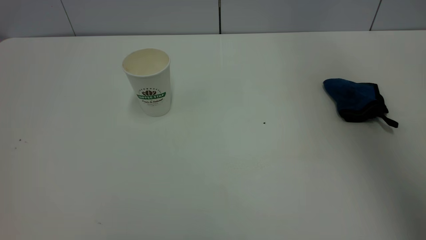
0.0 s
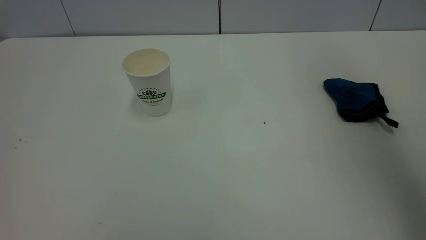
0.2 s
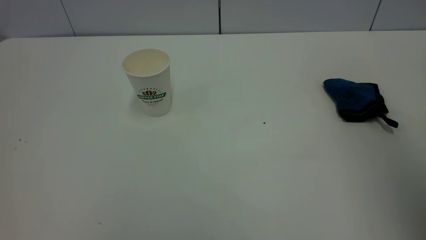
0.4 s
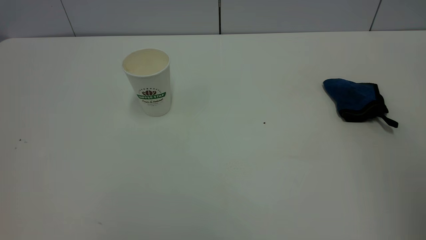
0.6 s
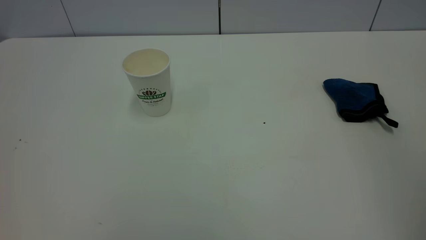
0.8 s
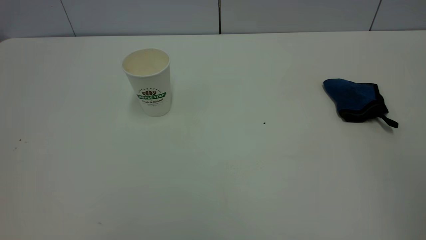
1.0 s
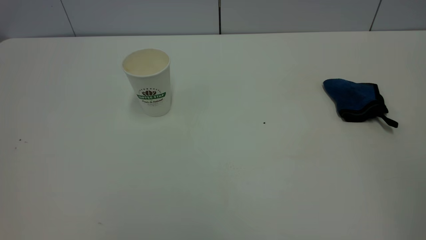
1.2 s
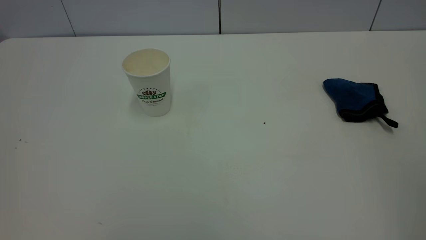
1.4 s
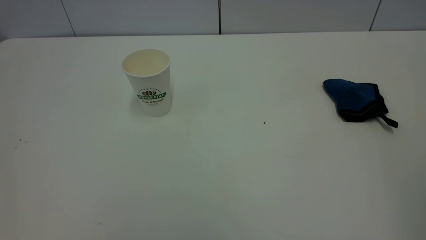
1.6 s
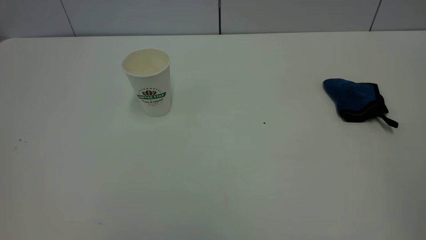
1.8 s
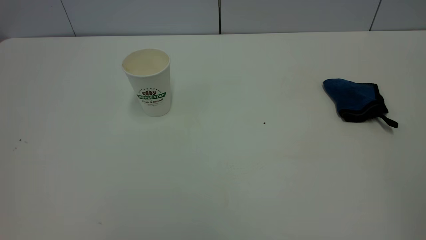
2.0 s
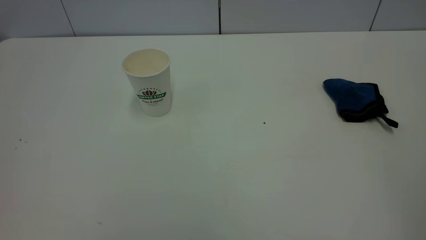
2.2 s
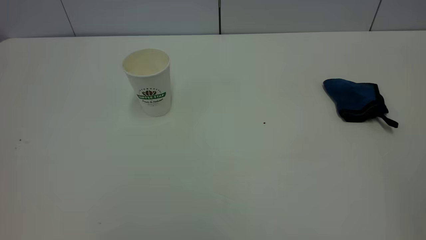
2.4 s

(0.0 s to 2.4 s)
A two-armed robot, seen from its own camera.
Task of the whole recording: the left gripper pick up the fallen cup and place it upright, the right gripper grasp the blue rag and wipe the tea stain on the table, the right gripper put the blue rag back in its original position.
0.0 s - 1.2 s: The right gripper travels backward by roughly 30 cm.

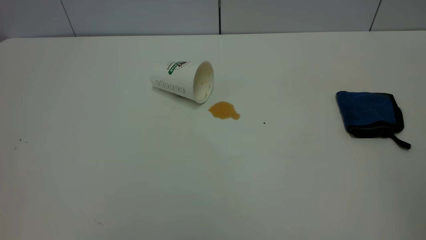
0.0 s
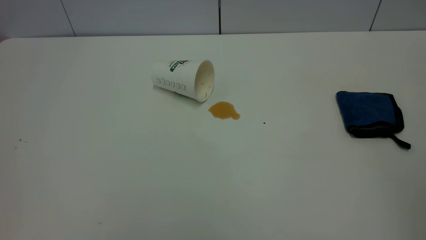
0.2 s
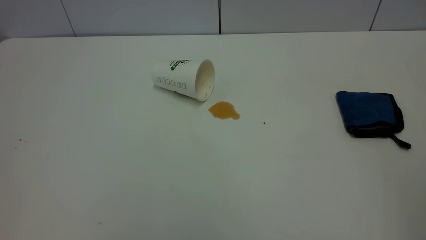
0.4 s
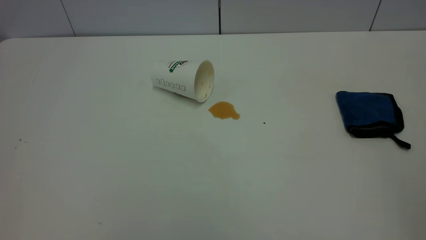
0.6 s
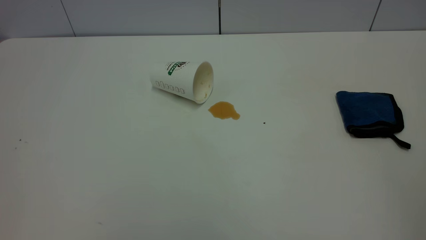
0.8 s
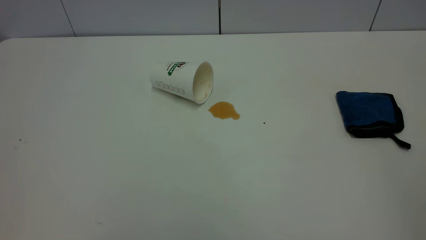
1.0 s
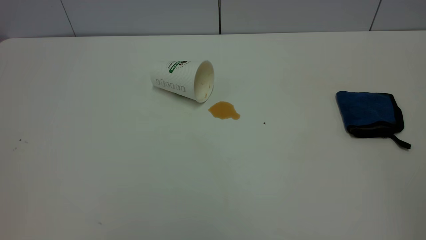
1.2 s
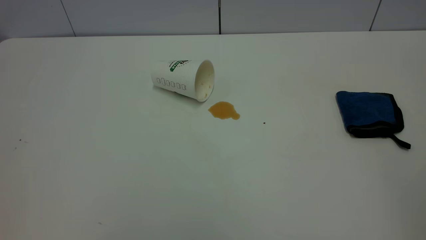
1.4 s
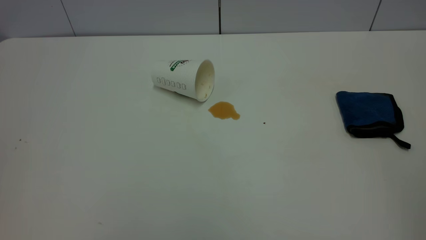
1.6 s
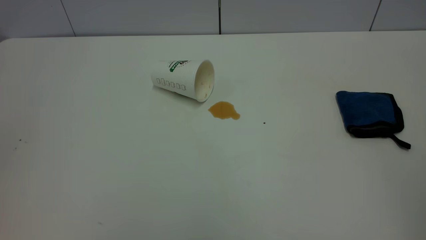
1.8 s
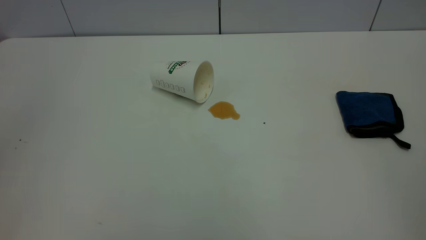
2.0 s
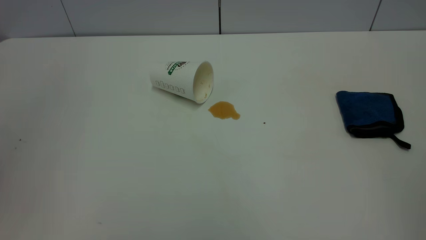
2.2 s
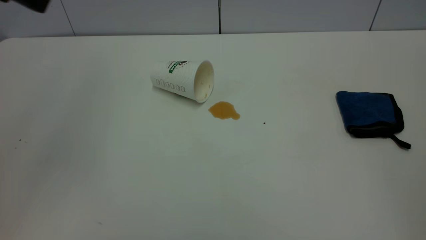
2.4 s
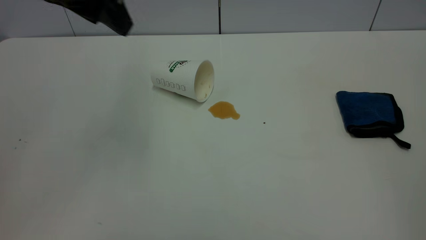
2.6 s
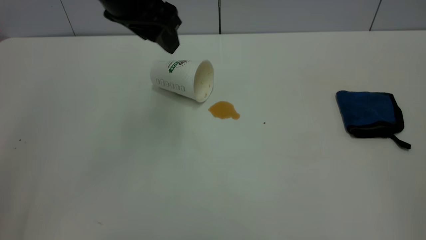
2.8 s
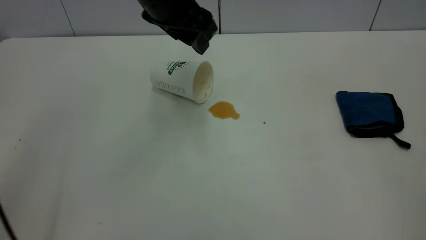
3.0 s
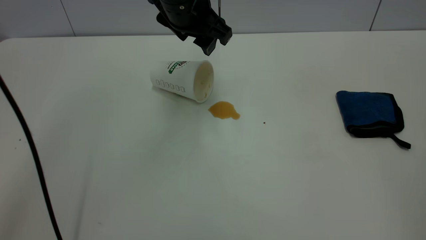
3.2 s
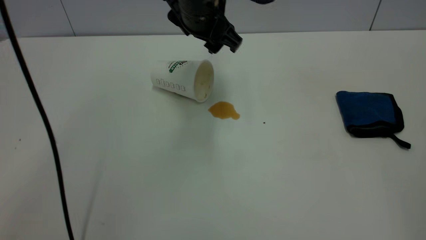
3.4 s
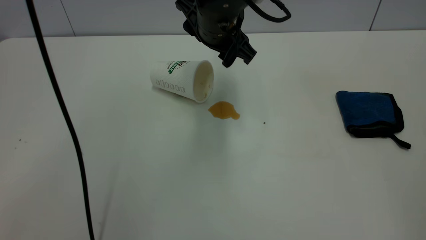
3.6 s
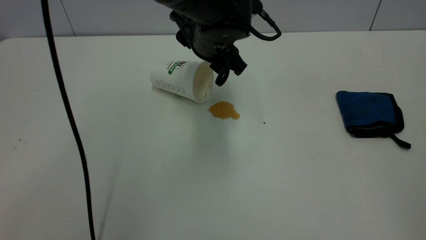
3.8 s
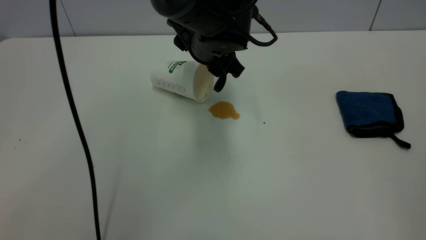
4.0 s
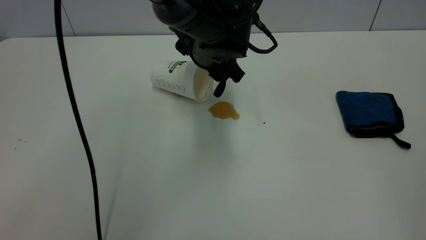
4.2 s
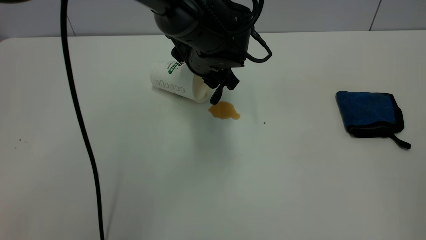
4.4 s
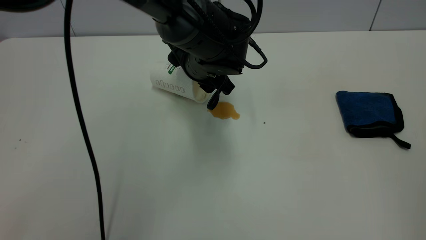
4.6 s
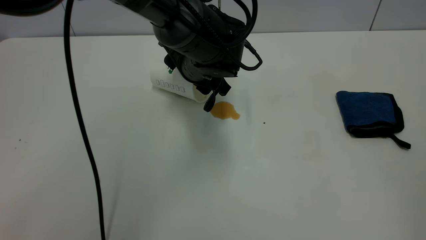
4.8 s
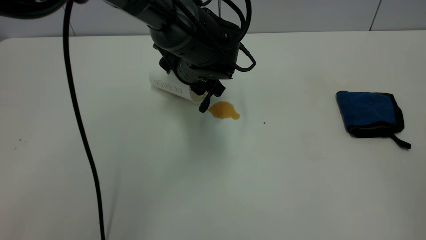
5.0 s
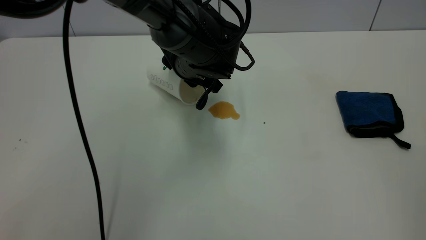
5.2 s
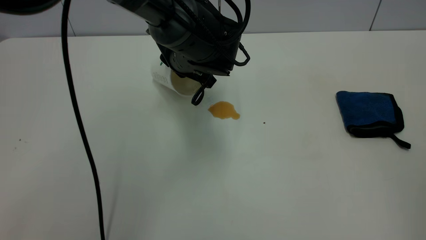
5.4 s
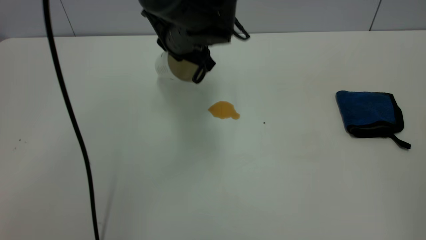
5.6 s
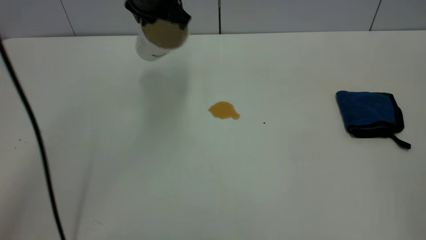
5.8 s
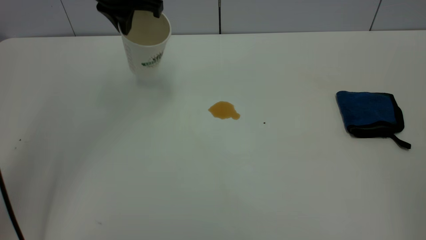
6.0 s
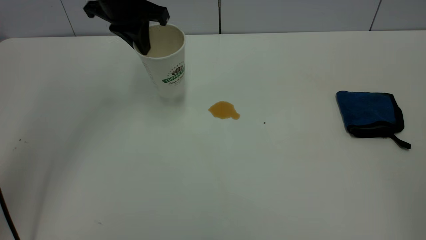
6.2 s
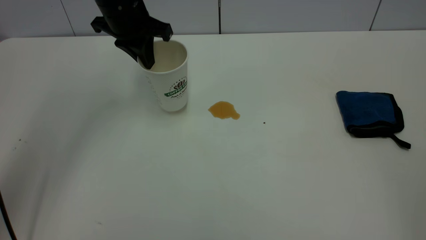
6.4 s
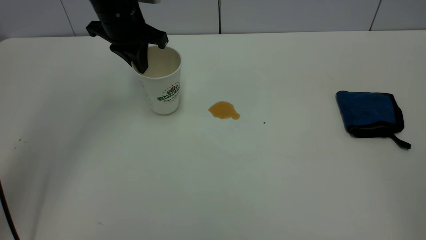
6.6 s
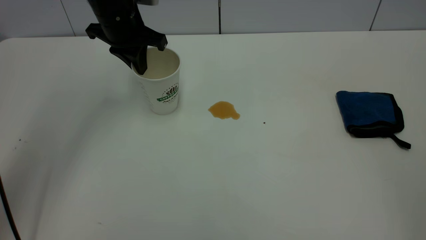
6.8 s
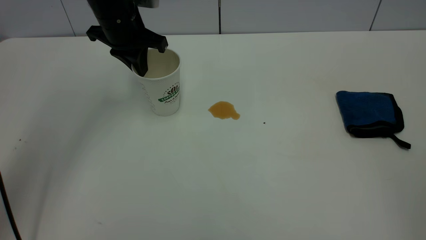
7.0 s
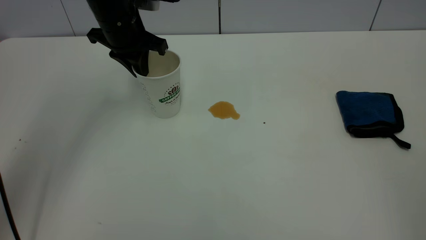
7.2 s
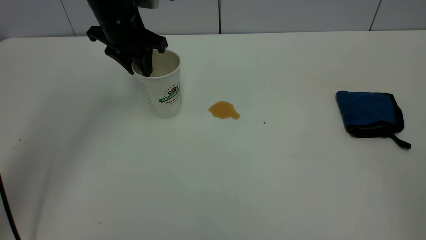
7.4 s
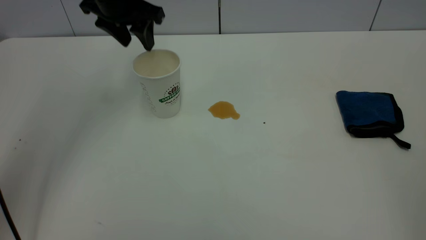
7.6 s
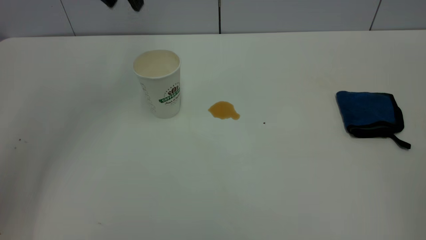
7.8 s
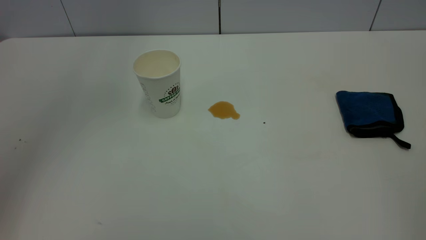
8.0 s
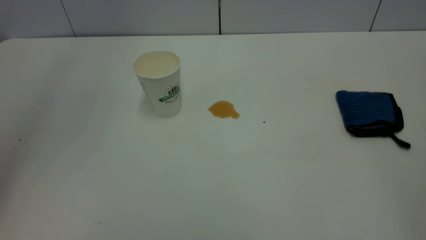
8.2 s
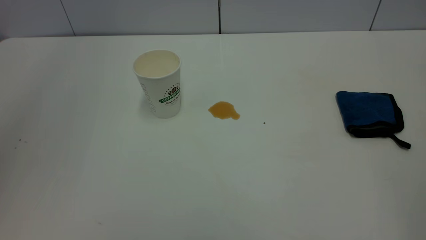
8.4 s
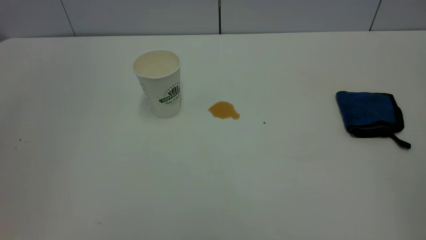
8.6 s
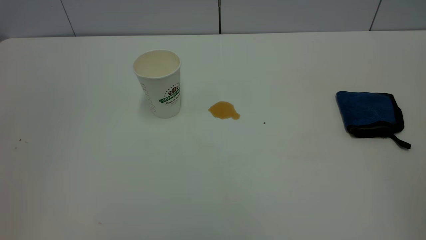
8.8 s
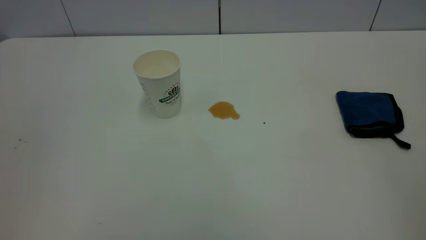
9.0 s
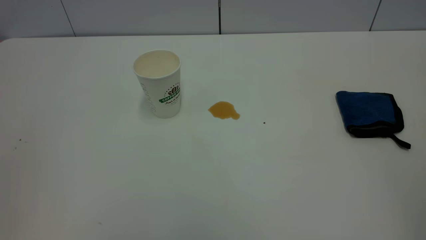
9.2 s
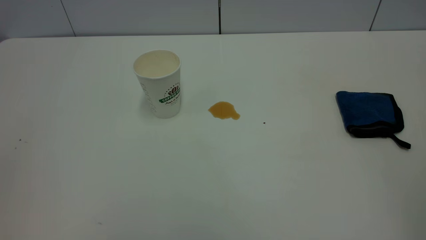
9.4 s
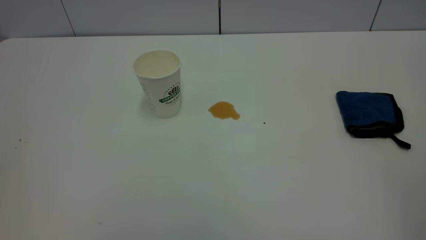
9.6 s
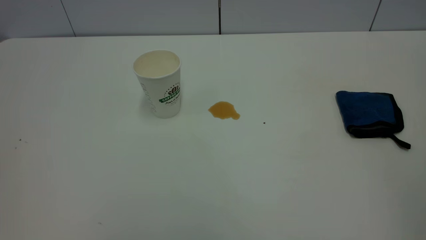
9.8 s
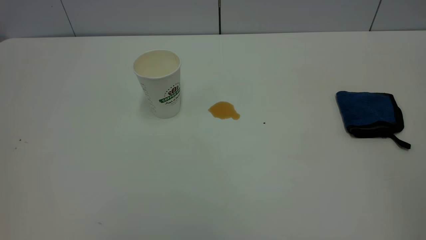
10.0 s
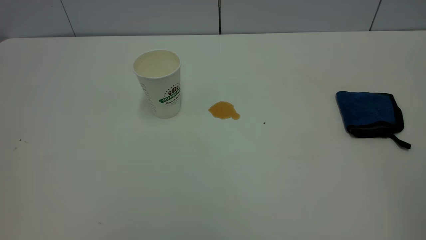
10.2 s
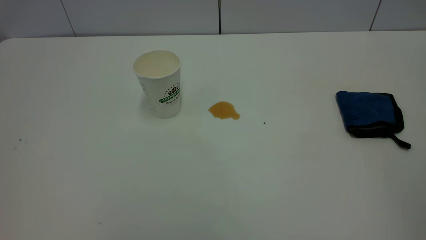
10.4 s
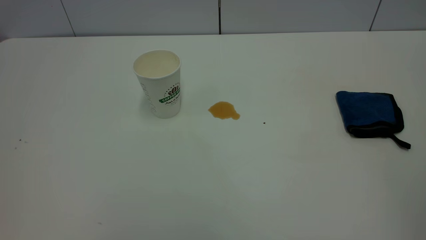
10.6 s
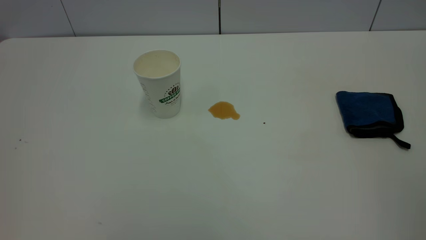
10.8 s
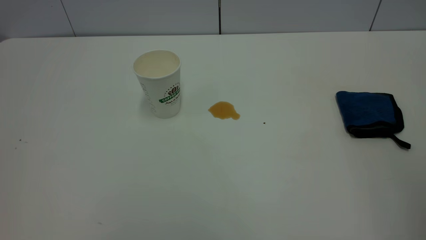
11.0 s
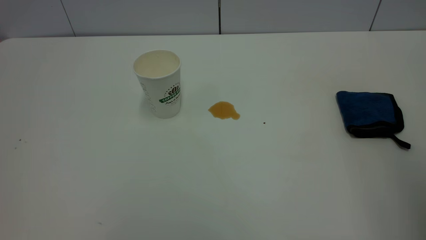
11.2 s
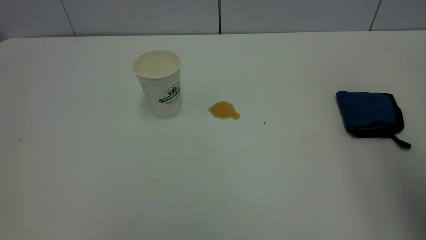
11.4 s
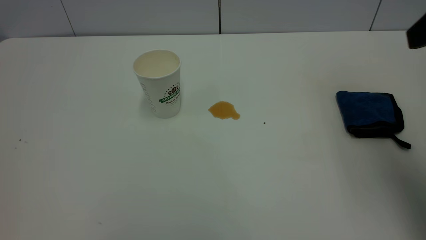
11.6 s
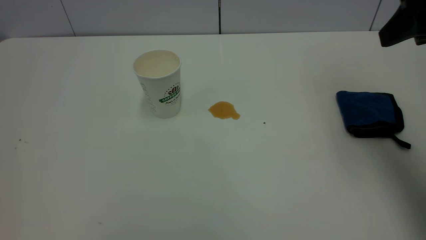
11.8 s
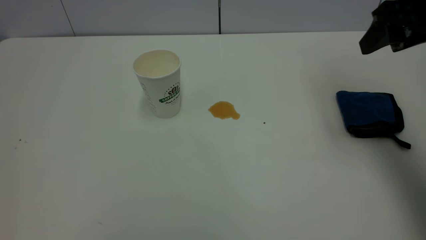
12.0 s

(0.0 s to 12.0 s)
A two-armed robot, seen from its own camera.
Task of the whole recording: the left gripper pick up the fallen cup and place it upright, the right gripper grasp the blue rag and wipe the tea stain on the table, the right gripper put the blue rag back in its original position.
Step, 0.0 s - 7.6 s: Stand the paper cup upright.
1.6 s - 3.0 s: The left gripper goes roughly 40 cm forward and to the right.
3.0 s - 4.4 s: The left gripper travels downward and to the right by approximately 15 cm.
4.4 s - 6.0 s: The left gripper shifts approximately 20 cm to the left, upward and forward, and closes.
6.0 s - 7.6 s: The left gripper opens up.
7.6 s - 9.0 s: The left gripper travels backward by roughly 35 cm.
10.4 s - 12.0 s: The right gripper heads forward, covering about 35 cm.

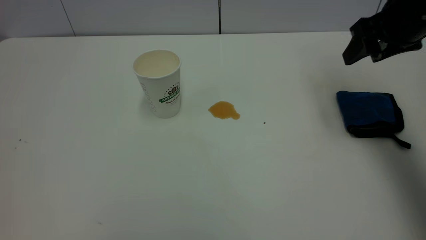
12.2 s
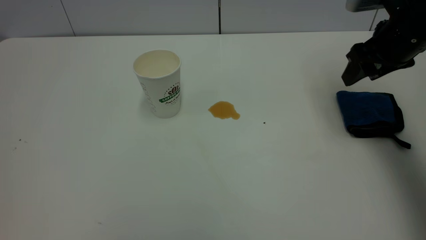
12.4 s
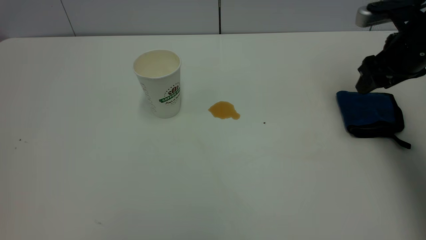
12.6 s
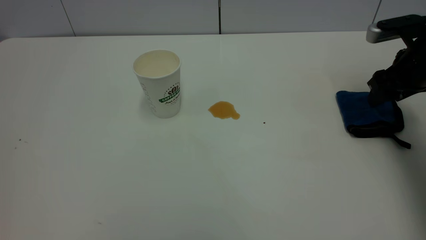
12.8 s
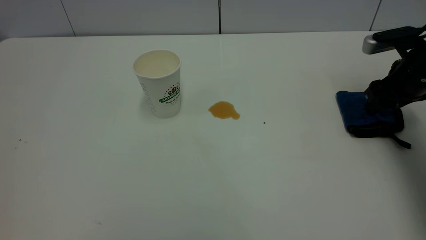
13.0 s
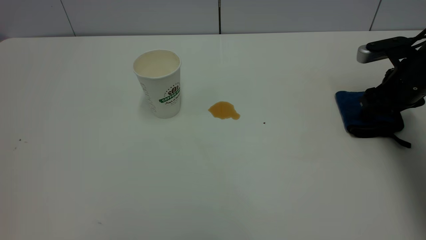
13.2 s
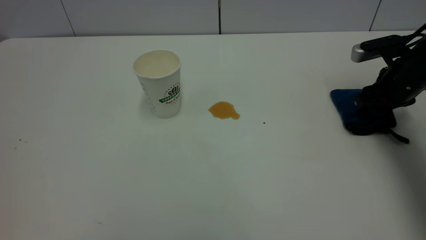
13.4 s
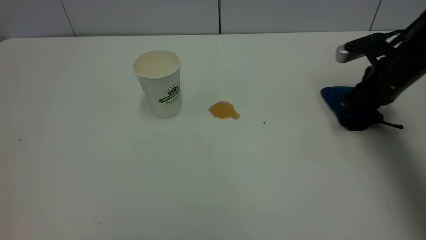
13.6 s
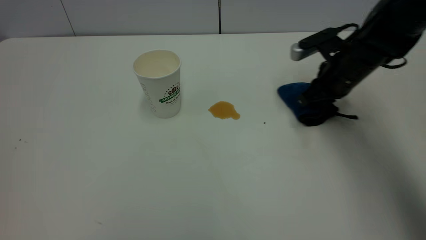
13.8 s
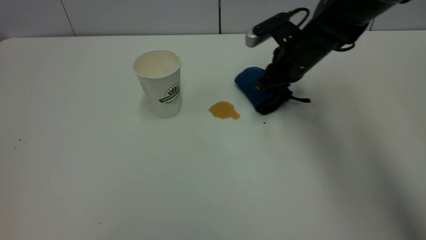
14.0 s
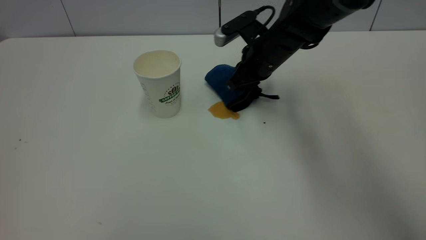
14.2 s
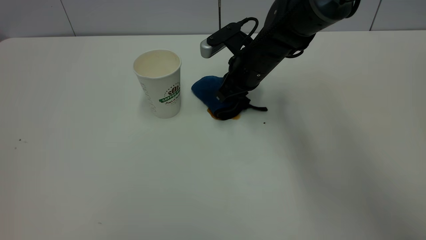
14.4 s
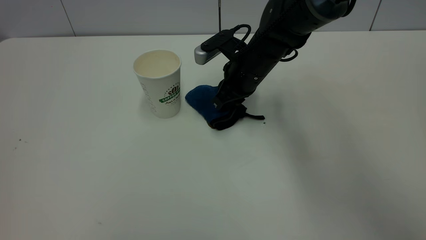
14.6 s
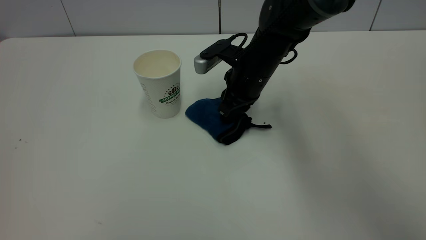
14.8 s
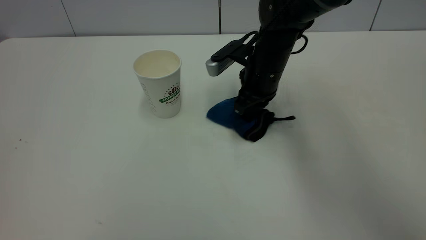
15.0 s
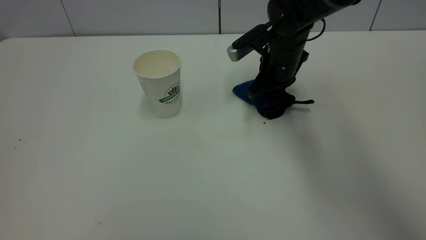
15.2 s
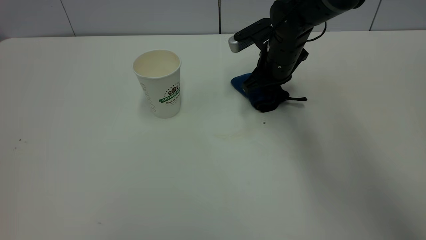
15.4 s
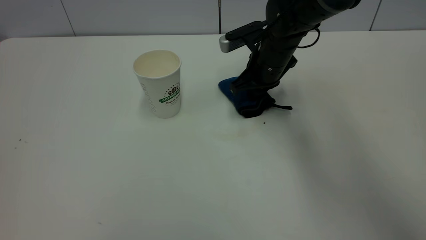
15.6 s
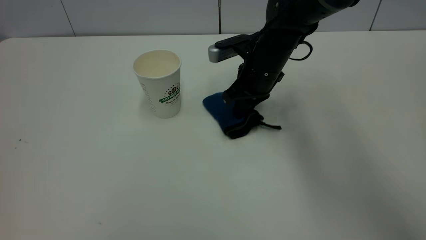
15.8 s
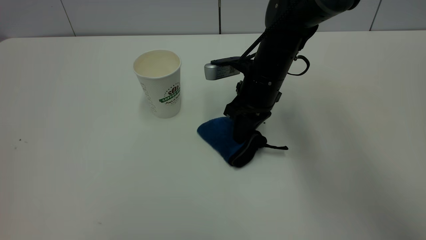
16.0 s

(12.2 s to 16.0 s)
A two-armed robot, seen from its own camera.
Task of the whole recording: the left gripper pick up the fallen cup and place it upright, the right gripper grasp the blue rag and wipe the tea stain on the table, the right gripper put the blue rag back in its original position.
12.2 s - 13.4 s: The right gripper heads downward, covering some 10 cm, and closes.
13.4 s - 14.8 s: The right gripper goes about 25 cm to the left, and closes its fingers.
